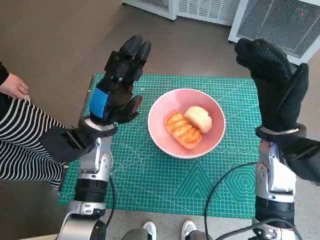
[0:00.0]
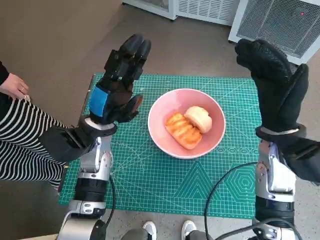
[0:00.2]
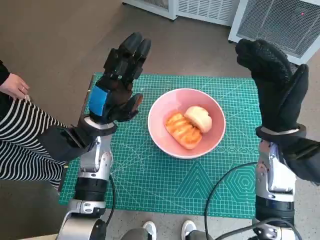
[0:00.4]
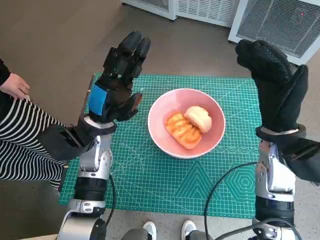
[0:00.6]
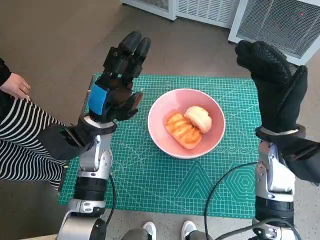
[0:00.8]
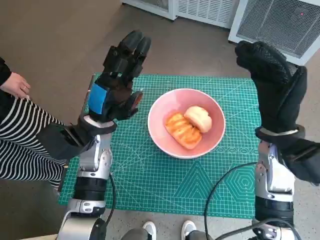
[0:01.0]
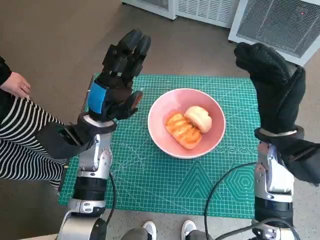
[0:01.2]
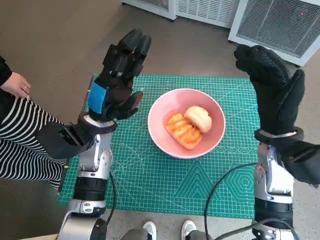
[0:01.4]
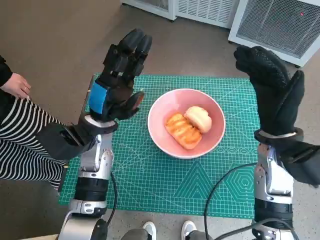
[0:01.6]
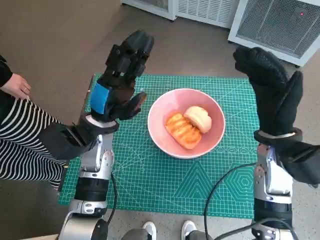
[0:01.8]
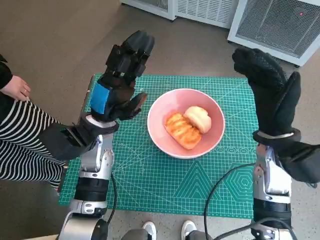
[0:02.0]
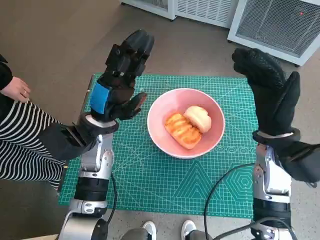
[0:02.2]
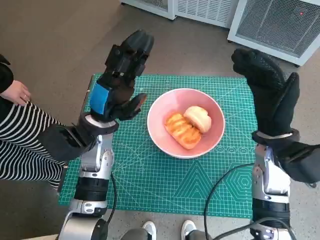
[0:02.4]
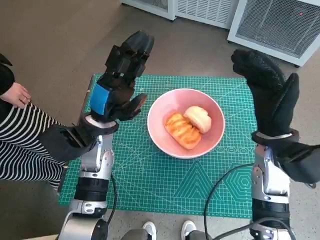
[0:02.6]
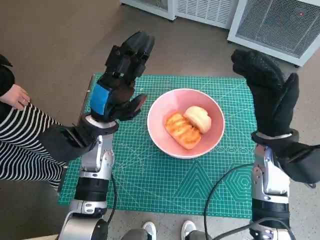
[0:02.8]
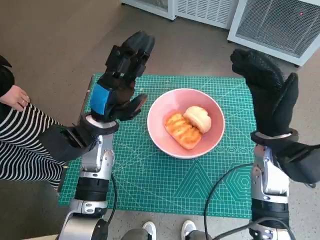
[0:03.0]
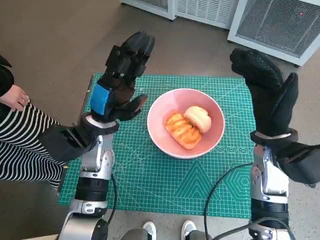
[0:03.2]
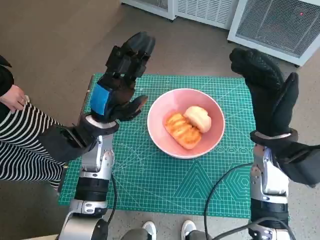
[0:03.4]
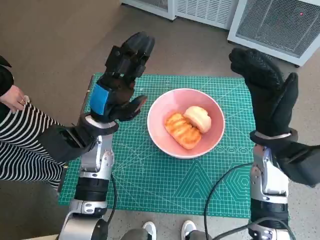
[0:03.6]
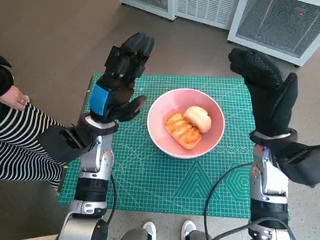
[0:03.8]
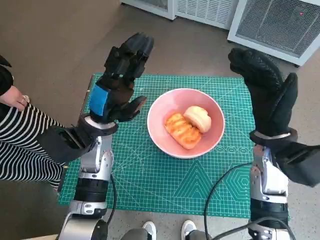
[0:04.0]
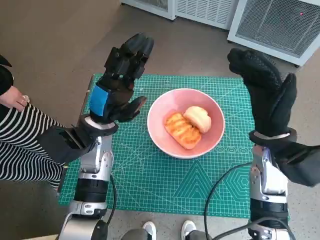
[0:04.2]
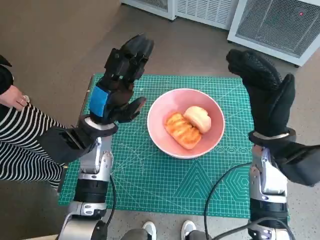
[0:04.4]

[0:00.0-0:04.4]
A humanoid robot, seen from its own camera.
Task of the whole recording: Push the bowl into the center of the table and put the bread into the bowl.
0:00.0 to 0:01.4: Neither hand changes place.
0:01.4 to 0:04.4: Neither hand changes place.

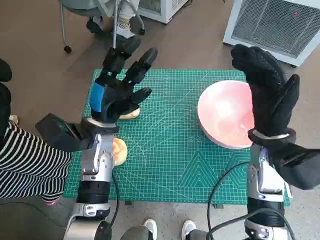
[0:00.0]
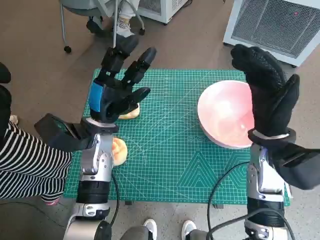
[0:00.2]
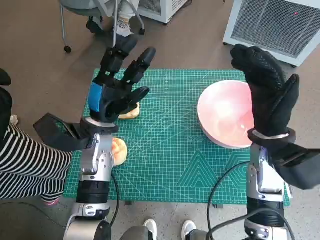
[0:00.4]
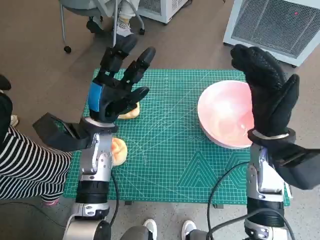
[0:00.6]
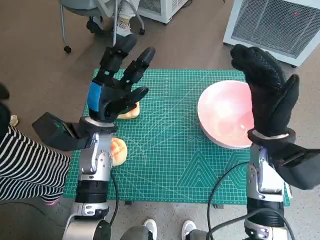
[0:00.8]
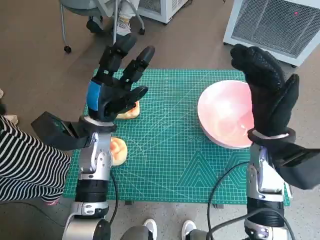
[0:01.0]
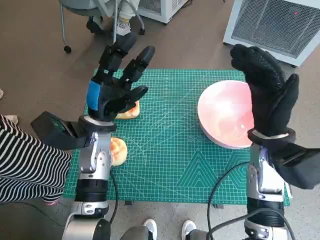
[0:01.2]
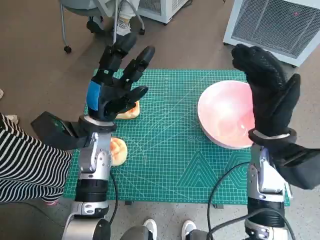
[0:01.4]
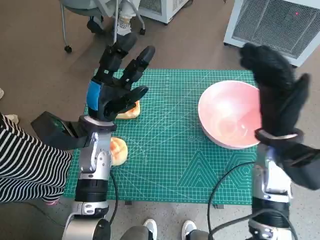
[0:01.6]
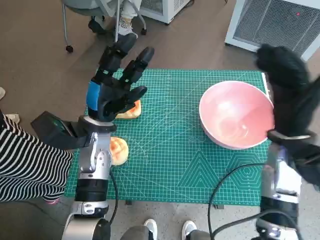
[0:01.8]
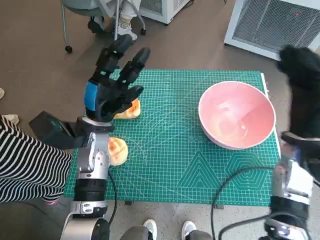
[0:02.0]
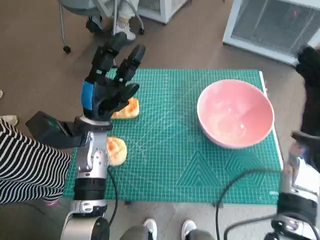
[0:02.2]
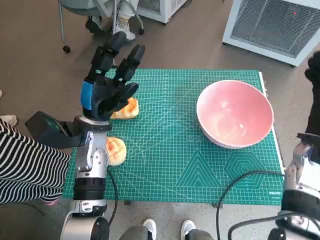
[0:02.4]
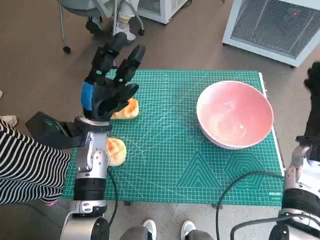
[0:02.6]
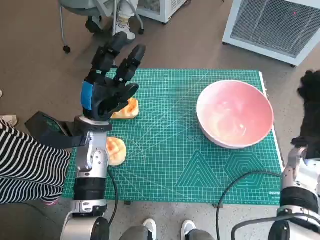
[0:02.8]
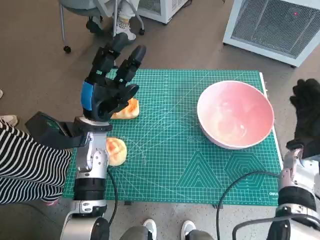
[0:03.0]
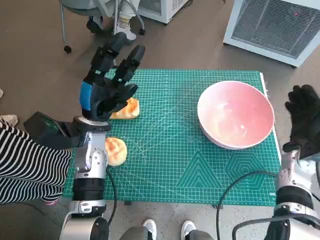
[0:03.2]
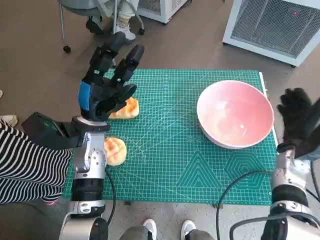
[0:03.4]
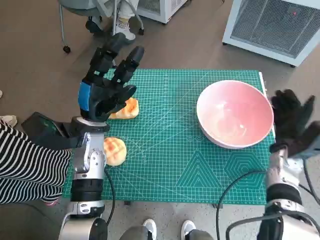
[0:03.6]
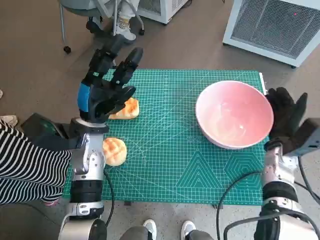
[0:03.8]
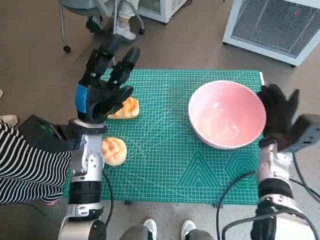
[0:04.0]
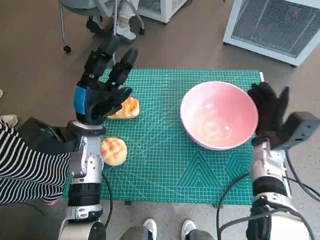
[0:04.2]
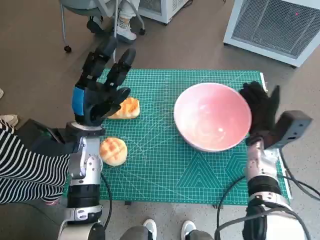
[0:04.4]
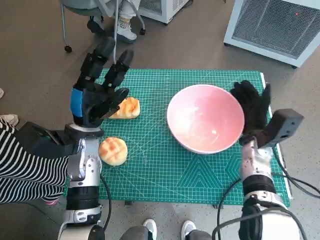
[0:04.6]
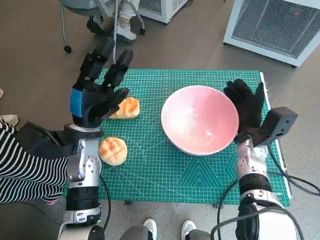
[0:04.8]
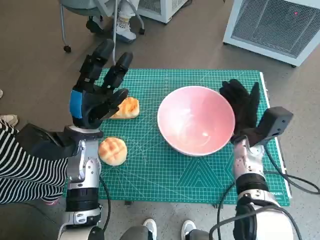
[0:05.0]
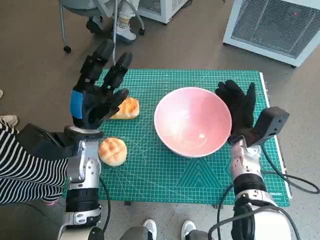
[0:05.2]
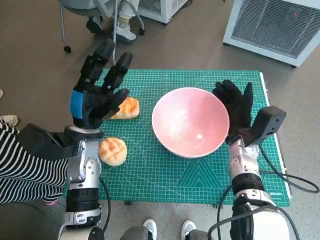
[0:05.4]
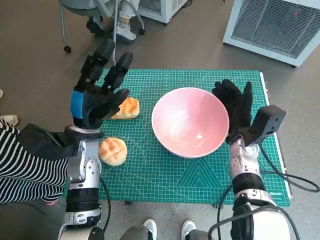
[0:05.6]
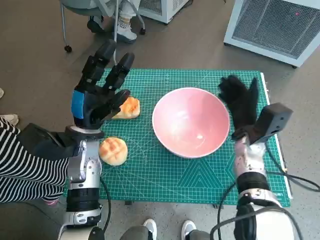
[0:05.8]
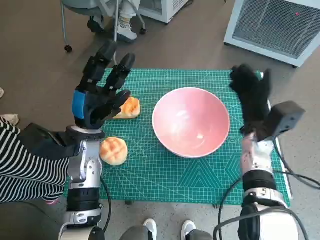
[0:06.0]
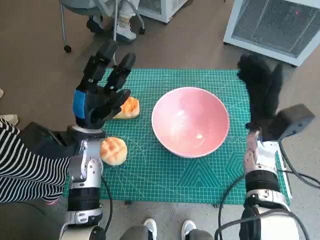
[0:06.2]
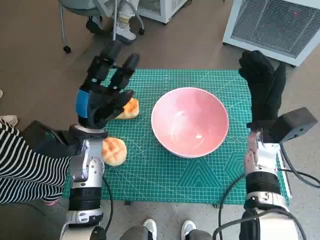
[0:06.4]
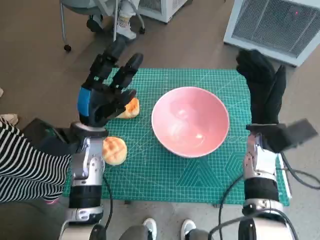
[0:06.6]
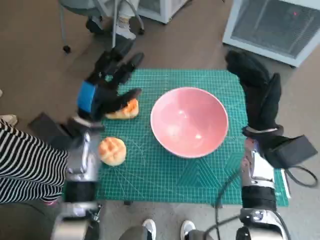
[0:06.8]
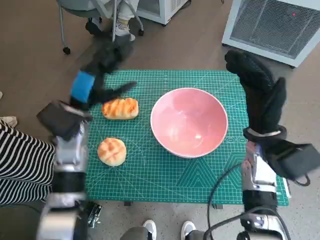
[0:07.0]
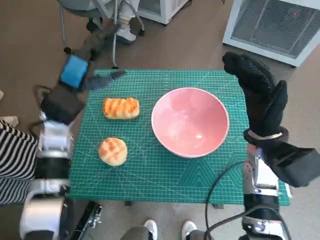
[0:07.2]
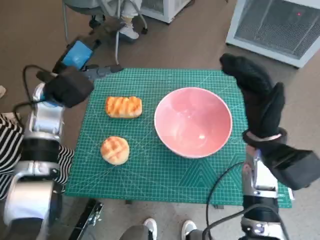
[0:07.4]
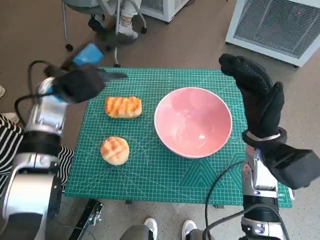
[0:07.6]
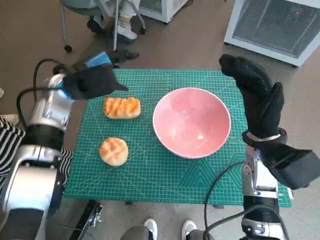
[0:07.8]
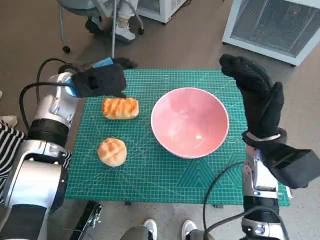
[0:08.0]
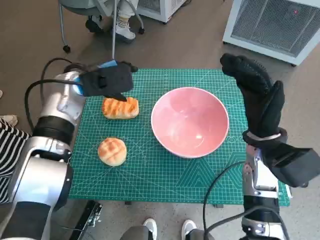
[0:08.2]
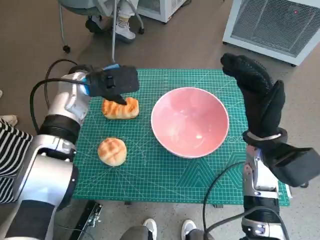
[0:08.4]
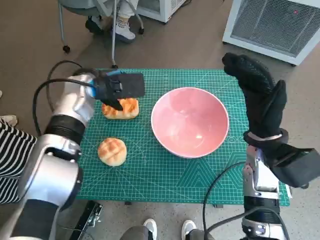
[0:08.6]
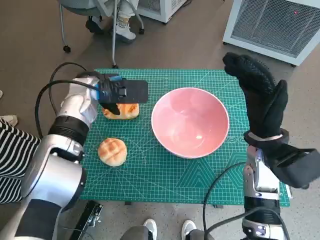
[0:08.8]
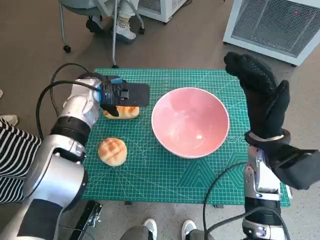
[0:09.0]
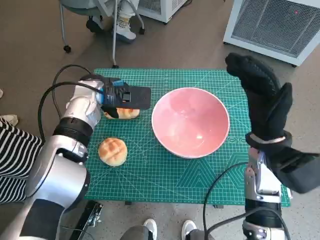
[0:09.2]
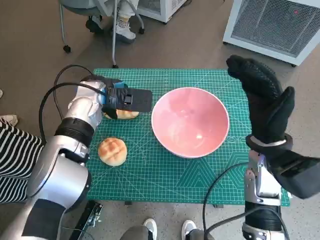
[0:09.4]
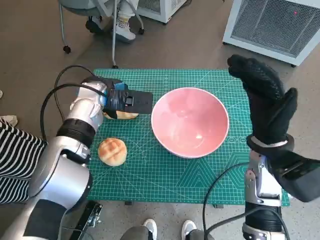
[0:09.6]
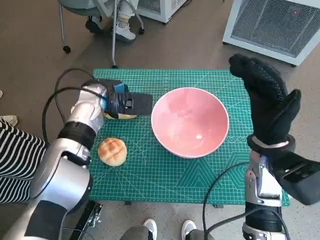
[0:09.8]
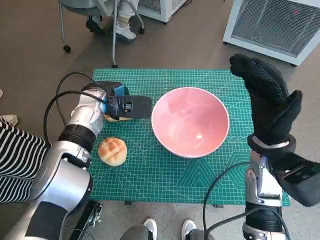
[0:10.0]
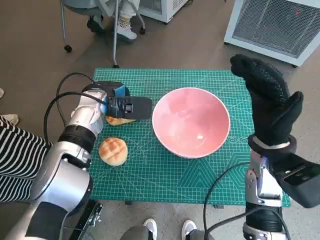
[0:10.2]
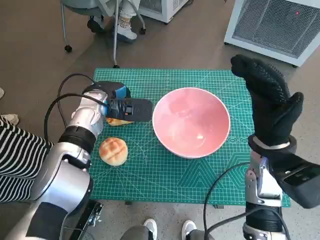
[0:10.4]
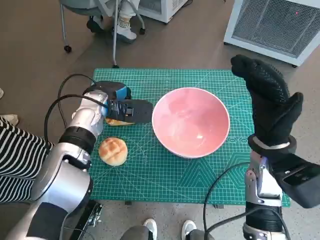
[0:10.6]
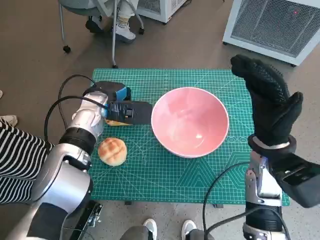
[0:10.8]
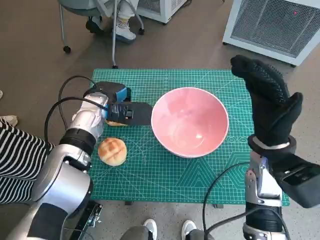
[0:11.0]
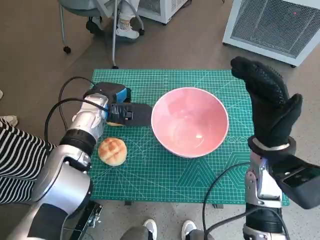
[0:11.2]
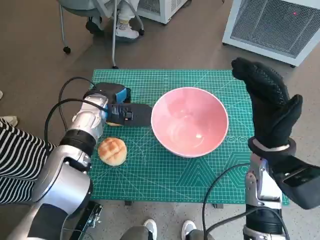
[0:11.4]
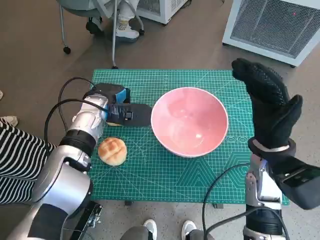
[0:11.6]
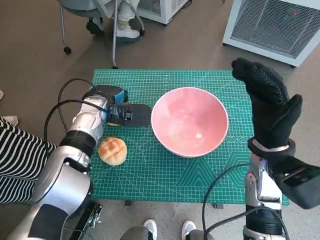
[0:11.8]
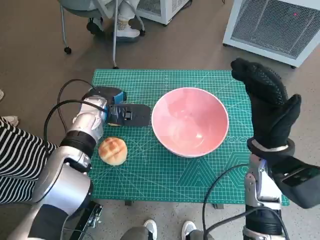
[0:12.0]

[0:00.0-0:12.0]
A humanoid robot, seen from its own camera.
Task of the whole recording: Push the bowl into the center of the table and put the bread into the bowl.
Step, 0:00.0 to 0:05.8: Move the pink bowl to the center of table with right hand.
0:01.6 to 0:03.0: The right hand moves to the right and downward, about 15 cm.
0:03.0 to 0:04.4: The right hand heads to the left, covering about 5 cm.
0:06.0 to 0:07.6: The right hand moves upward, about 5 cm, while the left hand shifts about 10 cm upward and forward.
0:07.6 to 0:09.0: The left hand shifts roughly 5 cm to the right.
0:10.4 to 0:12.0: The hands make only small movements.

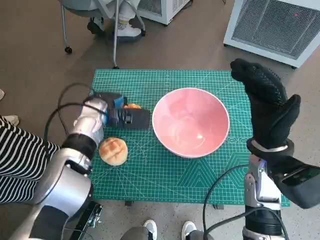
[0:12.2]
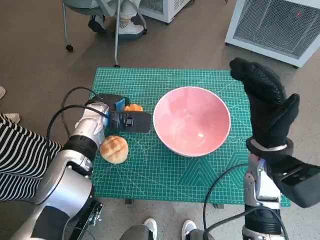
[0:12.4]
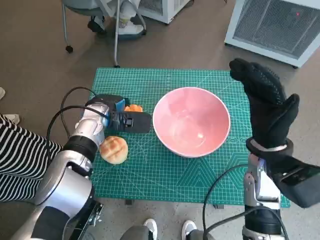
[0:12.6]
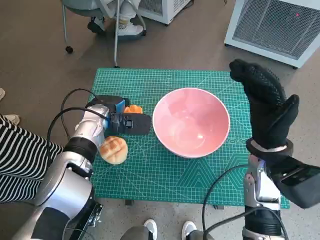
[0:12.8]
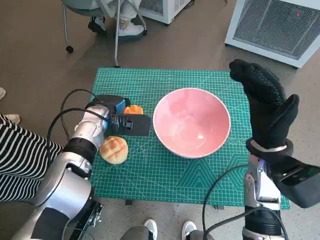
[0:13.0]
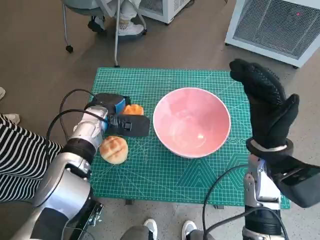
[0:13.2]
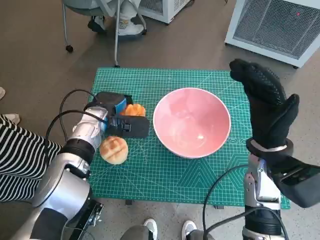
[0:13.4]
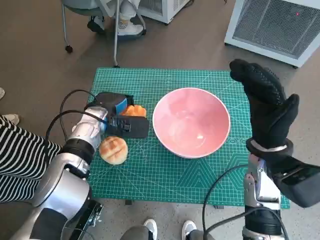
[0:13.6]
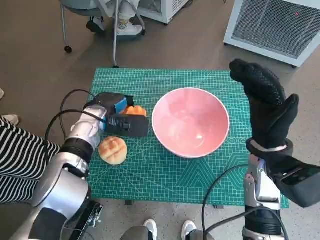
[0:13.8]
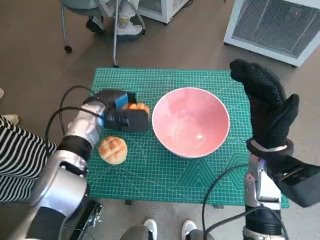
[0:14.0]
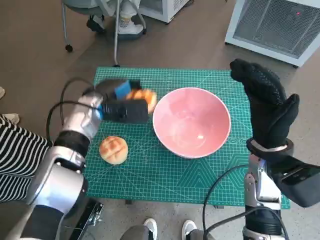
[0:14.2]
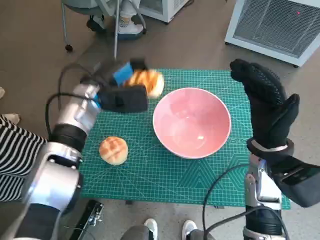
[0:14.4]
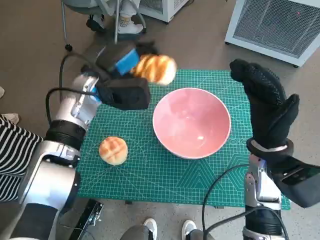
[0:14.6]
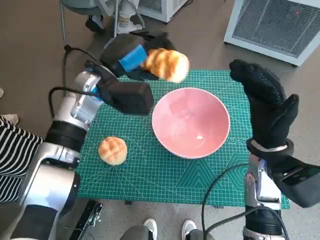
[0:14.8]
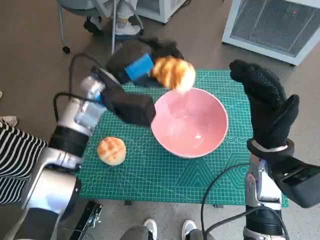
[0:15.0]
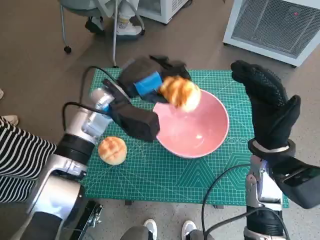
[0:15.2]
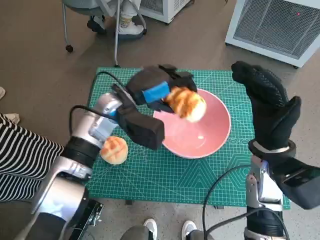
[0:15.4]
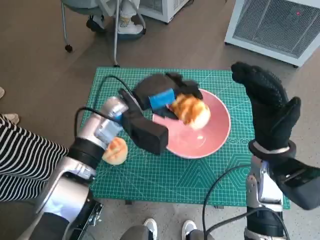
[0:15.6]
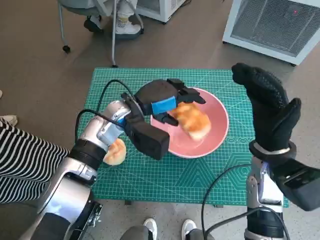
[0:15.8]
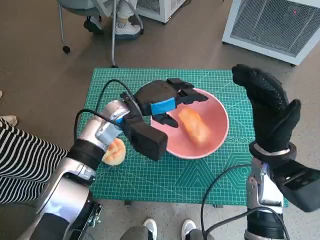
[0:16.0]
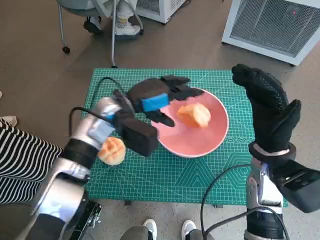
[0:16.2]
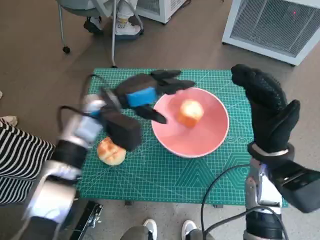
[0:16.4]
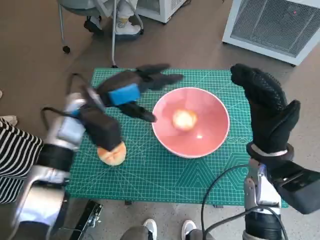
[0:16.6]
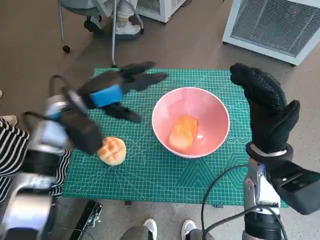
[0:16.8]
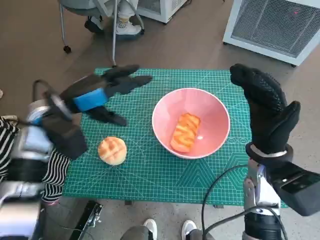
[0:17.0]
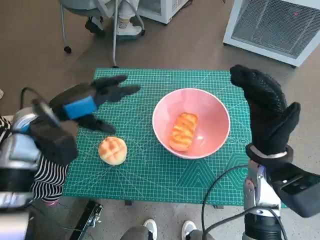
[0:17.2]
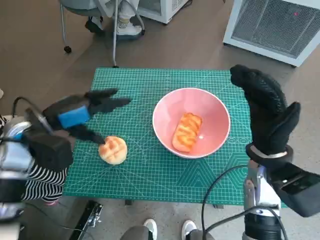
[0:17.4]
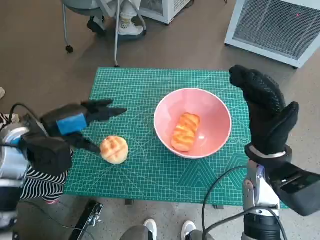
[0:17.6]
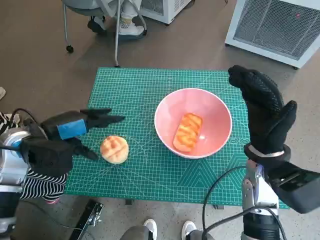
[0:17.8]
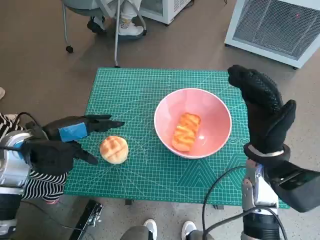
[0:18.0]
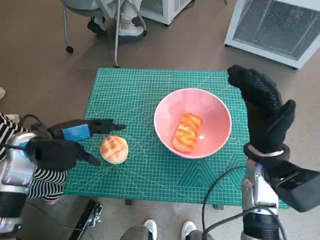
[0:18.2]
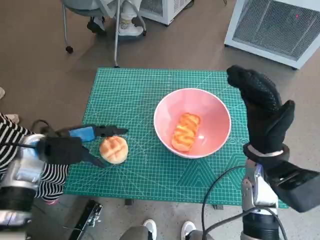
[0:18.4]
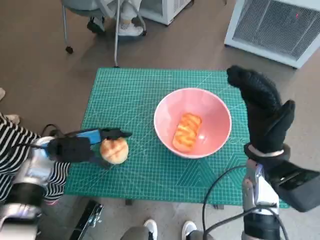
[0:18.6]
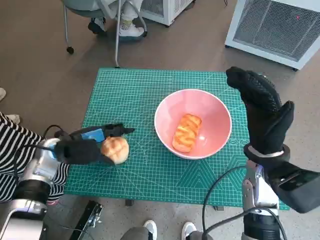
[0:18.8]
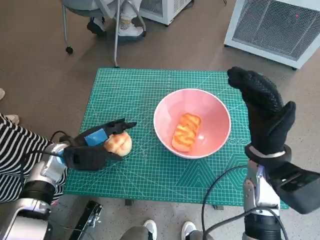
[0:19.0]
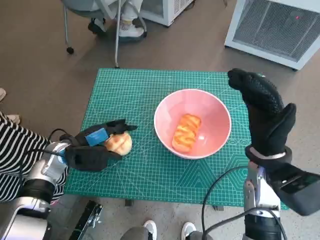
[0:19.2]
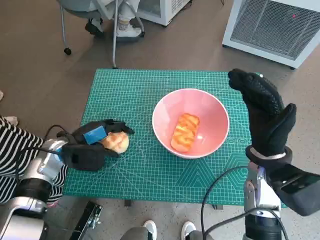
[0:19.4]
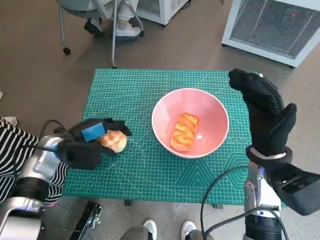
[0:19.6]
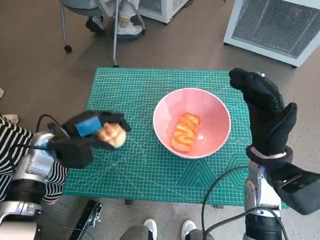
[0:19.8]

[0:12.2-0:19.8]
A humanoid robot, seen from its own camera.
Task of the whole recording: Push the bowl into the center of the table and put the bread into the bowl.
Step, 0:13.4 to 0:16.8: Place the long bread in pink bowl with left hand.
Step, 0:17.0 to 0:19.4: Grasp the round bread with left hand.
0:12.2 to 0:13.8: The hands stay close to where they were, moving slightly.
0:13.8 to 0:15.2: The left hand shifts roughly 10 cm upward.
0:15.2 to 0:16.8: The left hand goes some 5 cm to the left.
0:16.8 to 0:18.2: The left hand travels to the left and backward by approximately 10 cm.
